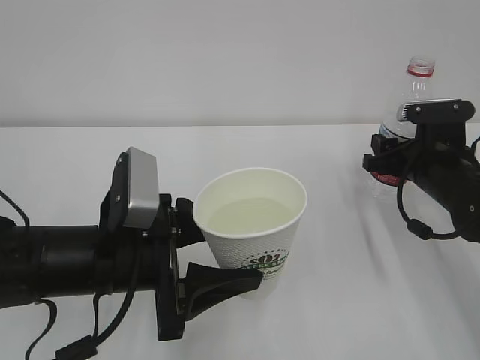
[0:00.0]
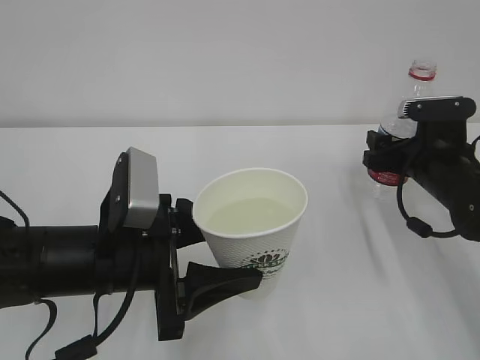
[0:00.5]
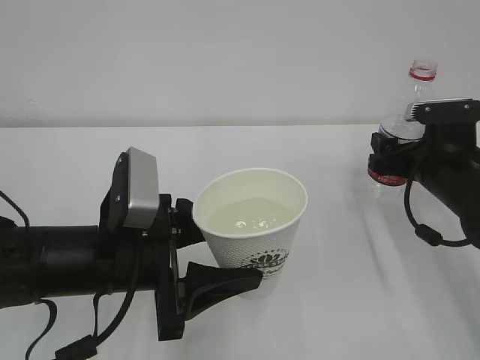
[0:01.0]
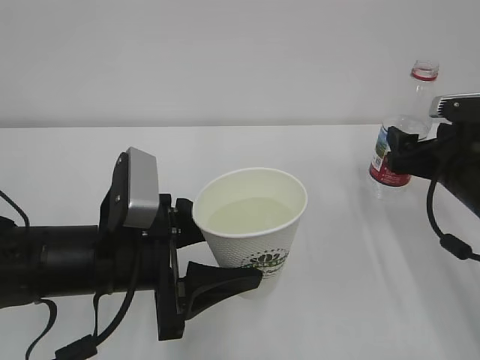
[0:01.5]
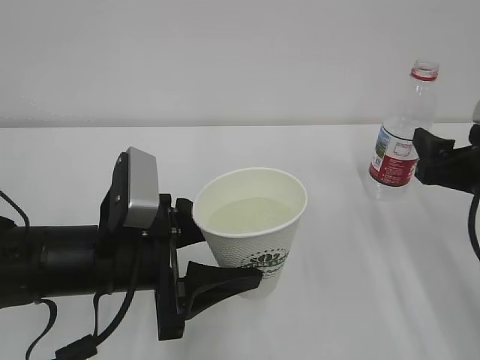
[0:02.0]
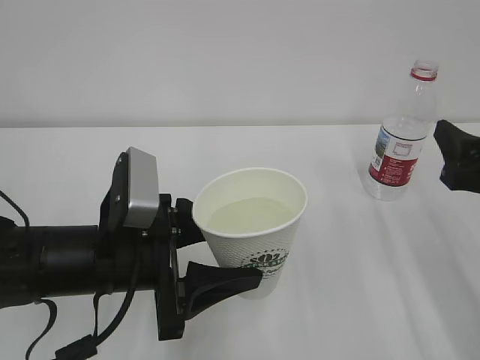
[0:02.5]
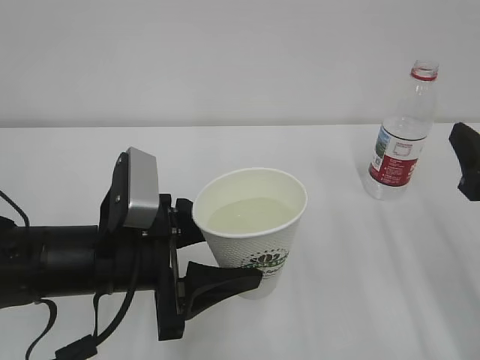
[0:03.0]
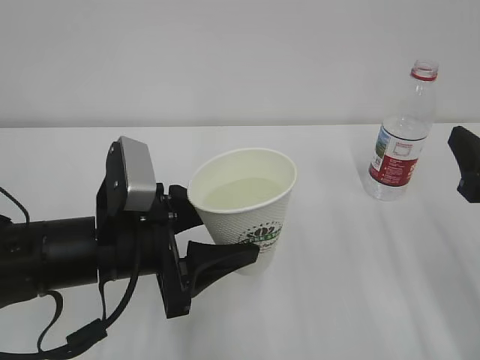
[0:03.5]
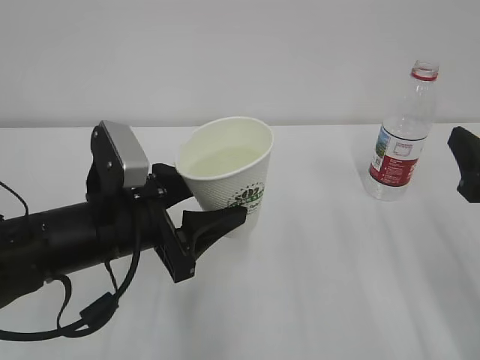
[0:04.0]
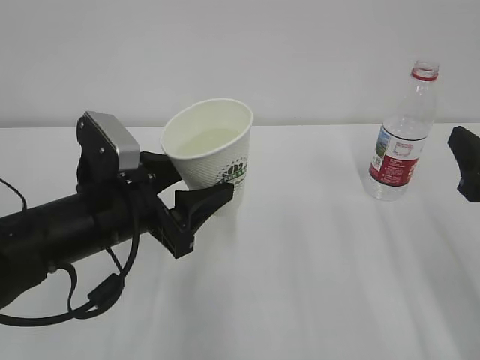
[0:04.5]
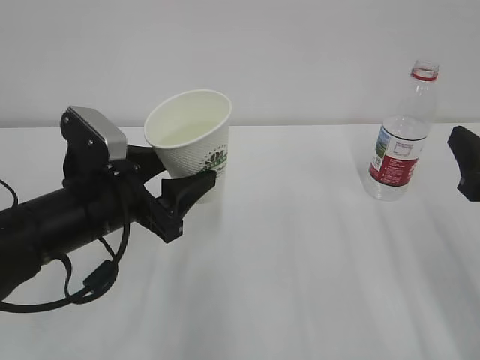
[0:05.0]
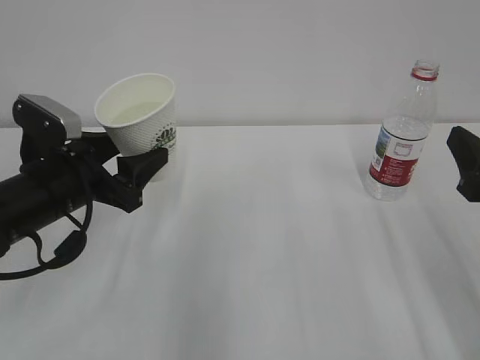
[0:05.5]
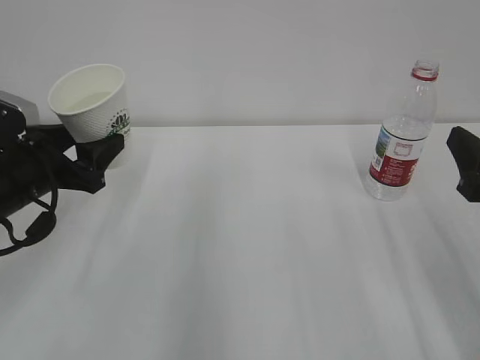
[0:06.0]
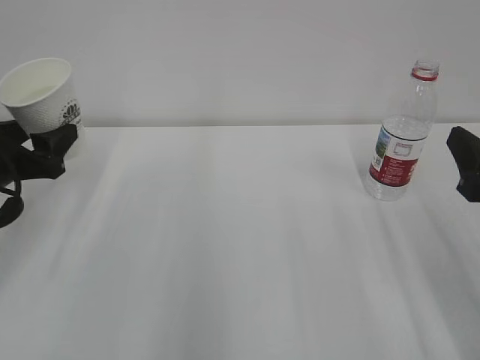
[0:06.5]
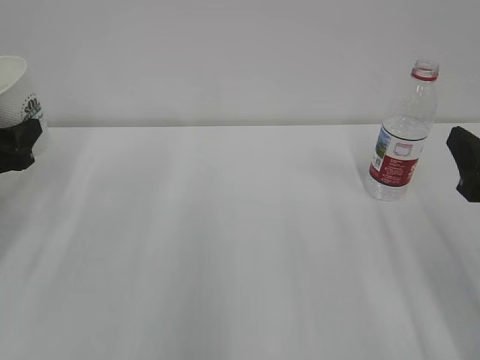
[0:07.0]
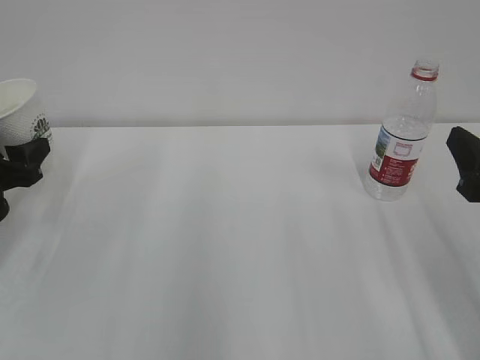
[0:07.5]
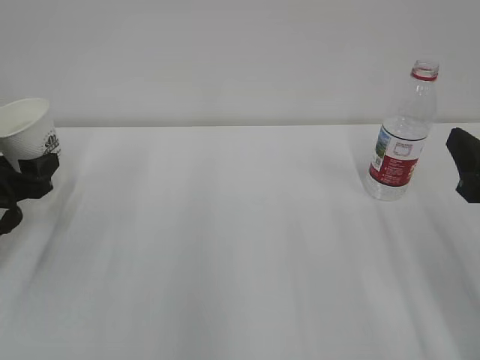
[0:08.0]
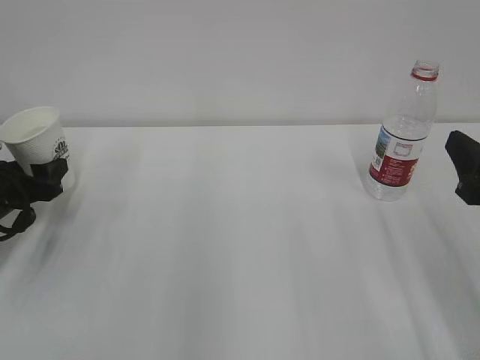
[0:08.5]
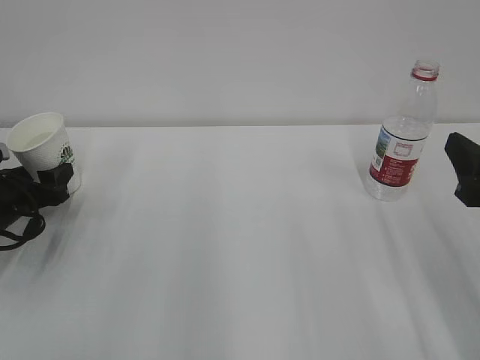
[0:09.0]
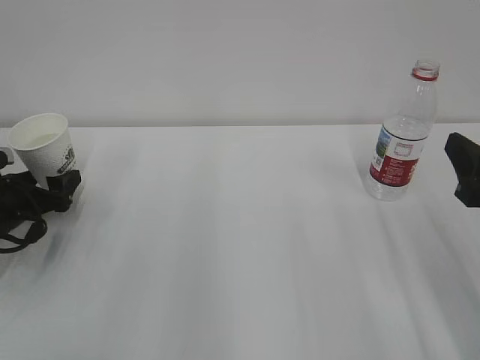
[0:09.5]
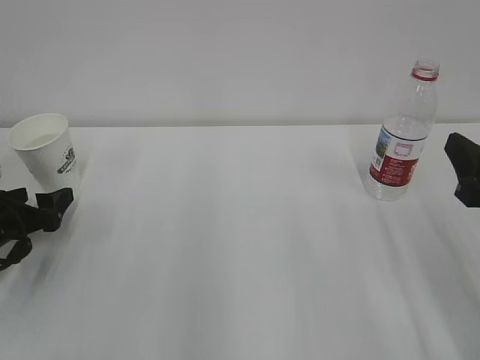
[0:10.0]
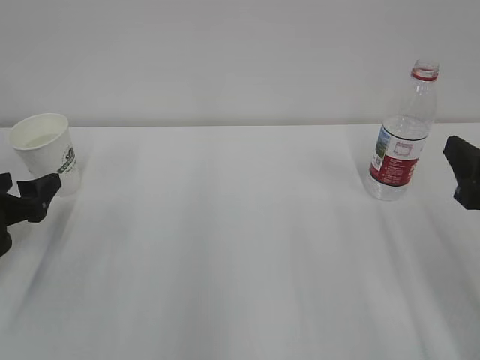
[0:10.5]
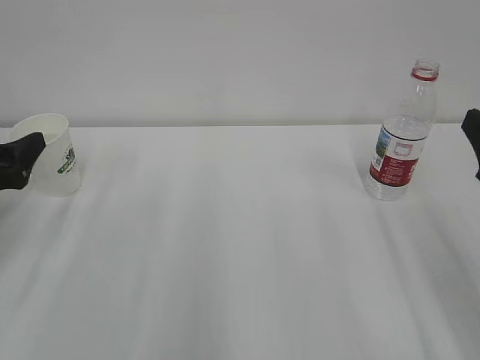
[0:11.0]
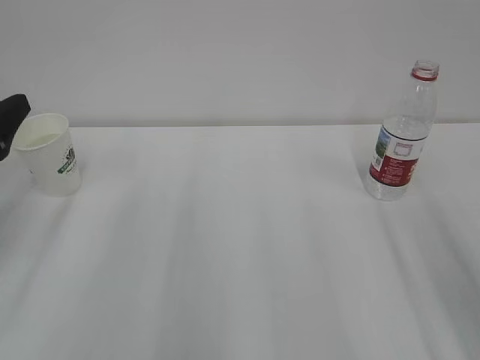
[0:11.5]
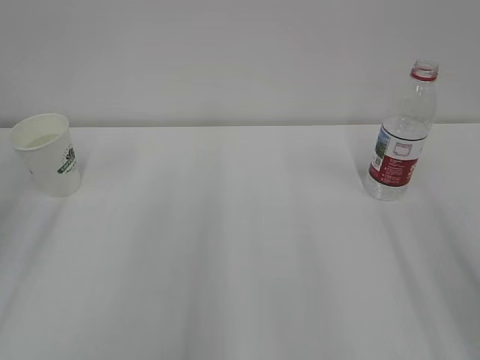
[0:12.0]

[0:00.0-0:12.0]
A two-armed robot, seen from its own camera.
0:00.0 to 0:02.0: The right gripper shifts roughly 10 cm backward and upward, and opens its fingers.
0:02.0 to 0:04.0: The right gripper travels backward by roughly 5 cm.
0:04.0 to 0:06.0: The left gripper travels to the left and forward by about 15 cm.
0:06.0 to 0:08.0: The left gripper heads to the left and downward, covering some 10 cm.
0:08.0 to 0:10.0: The left gripper opens its fingers.
0:10.0 to 0:12.0: The left gripper moves upward and backward, some 25 cm, and closes. Meanwhile the right gripper is displaced upward and backward by about 10 cm.
